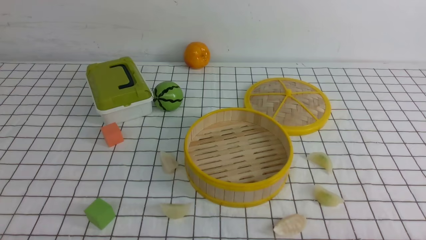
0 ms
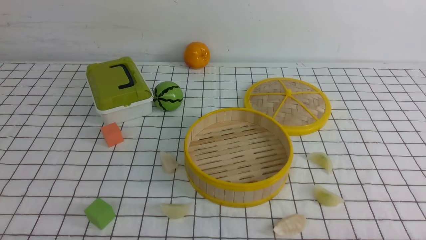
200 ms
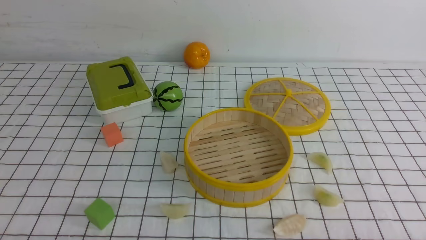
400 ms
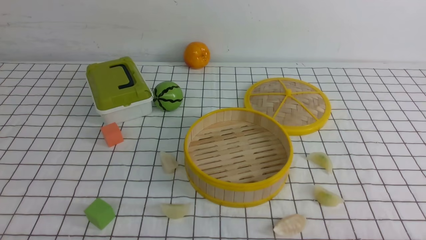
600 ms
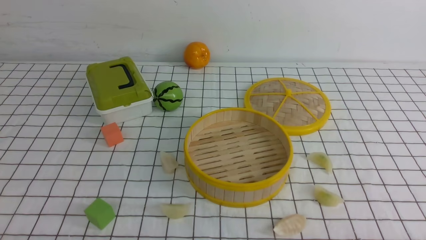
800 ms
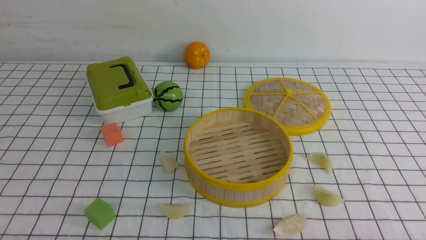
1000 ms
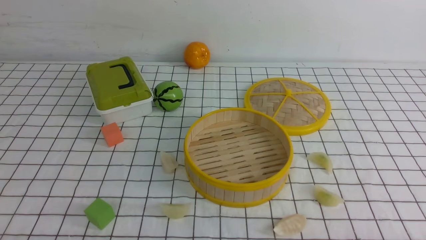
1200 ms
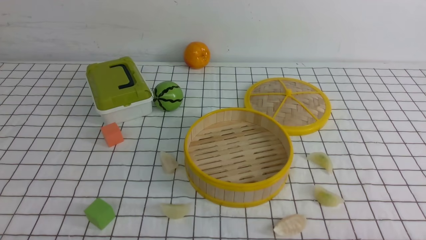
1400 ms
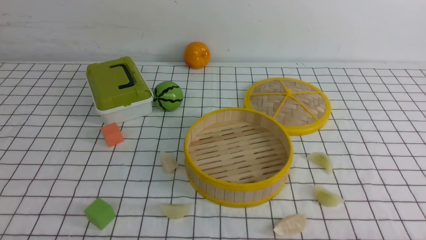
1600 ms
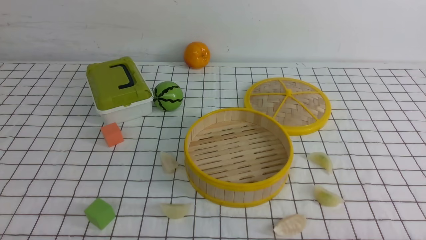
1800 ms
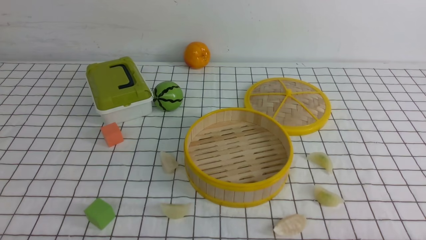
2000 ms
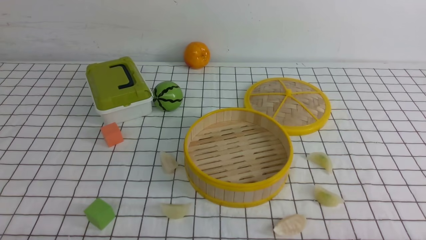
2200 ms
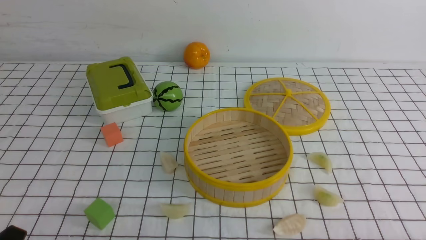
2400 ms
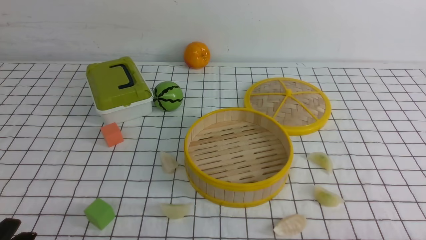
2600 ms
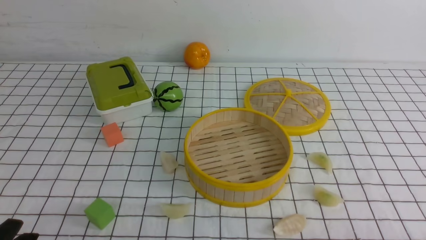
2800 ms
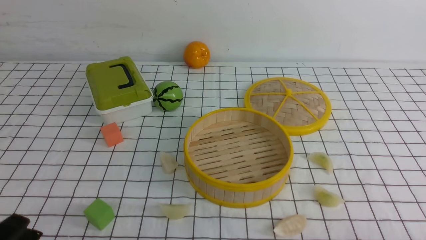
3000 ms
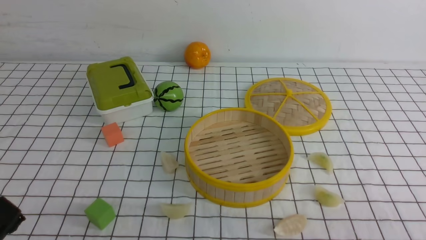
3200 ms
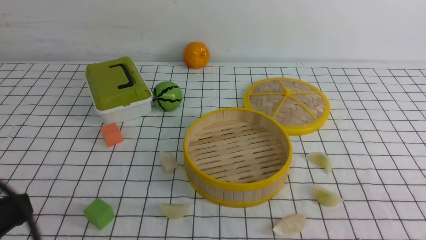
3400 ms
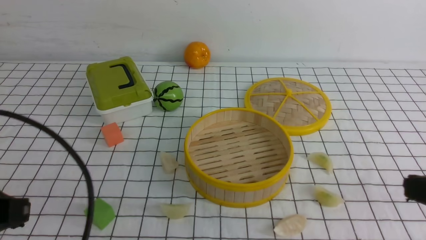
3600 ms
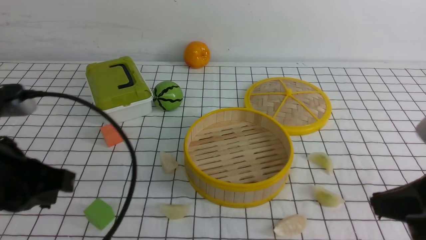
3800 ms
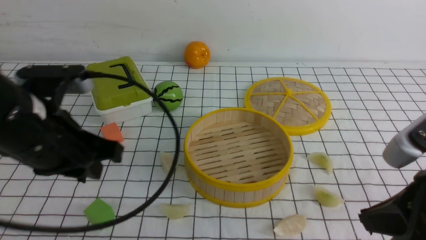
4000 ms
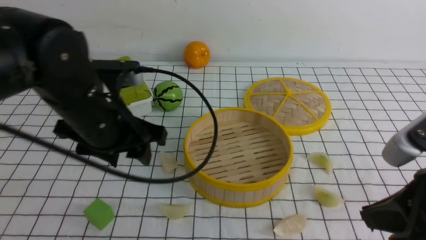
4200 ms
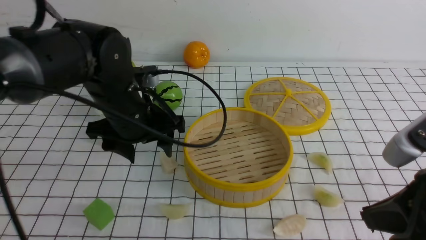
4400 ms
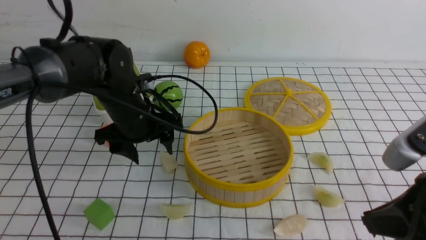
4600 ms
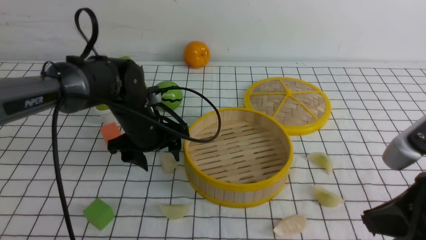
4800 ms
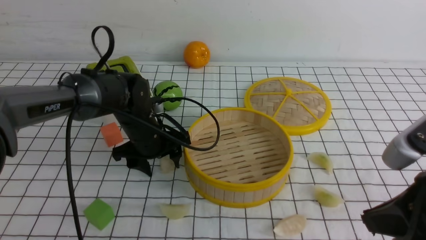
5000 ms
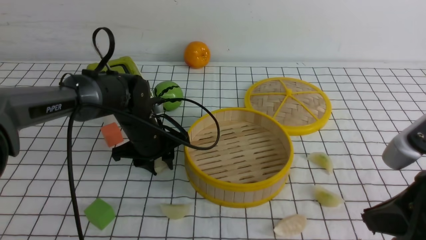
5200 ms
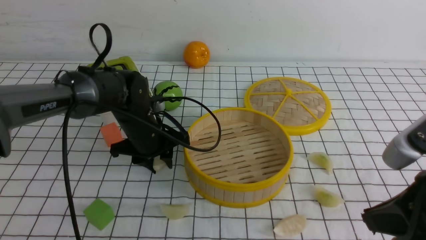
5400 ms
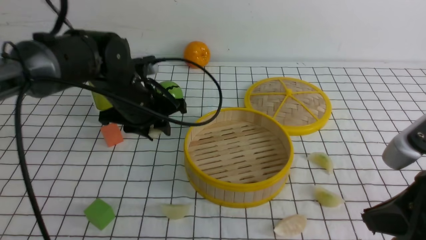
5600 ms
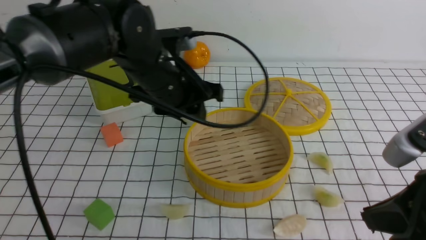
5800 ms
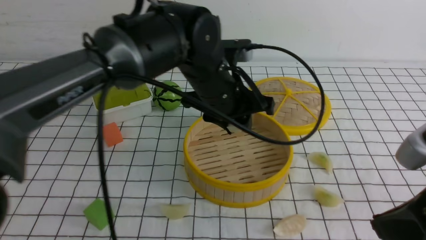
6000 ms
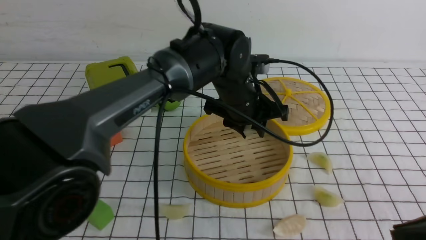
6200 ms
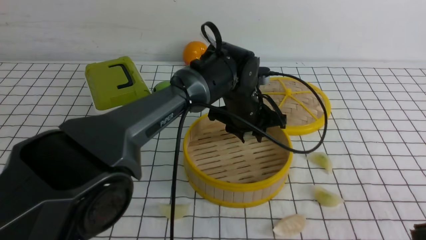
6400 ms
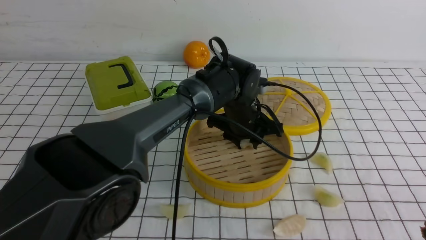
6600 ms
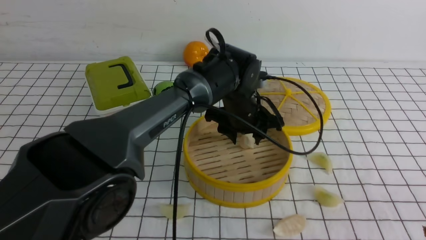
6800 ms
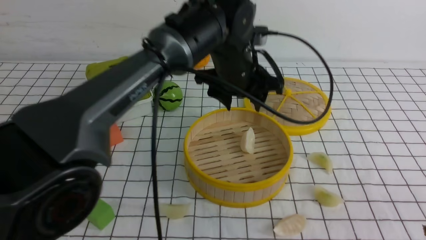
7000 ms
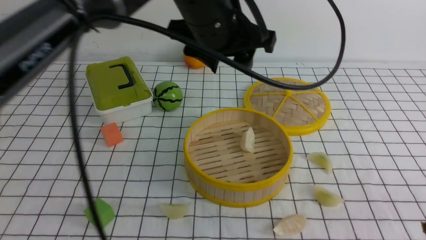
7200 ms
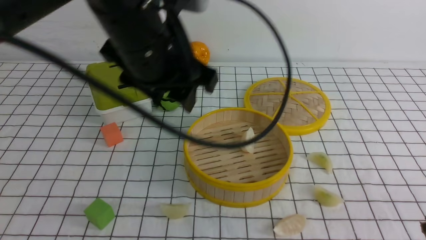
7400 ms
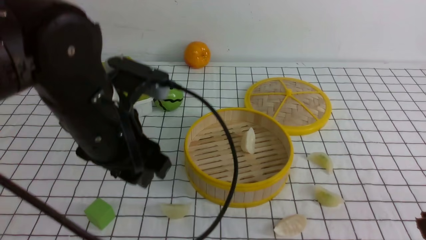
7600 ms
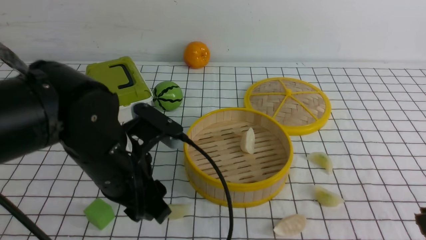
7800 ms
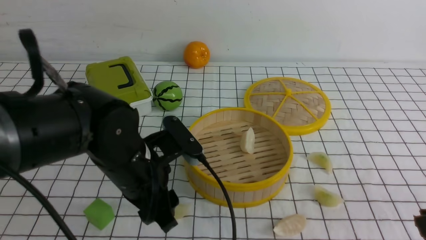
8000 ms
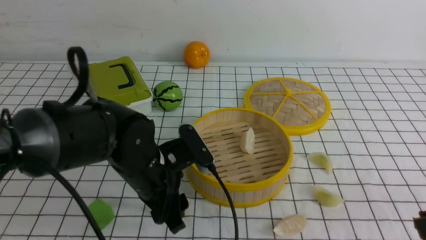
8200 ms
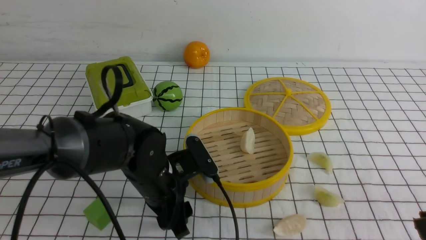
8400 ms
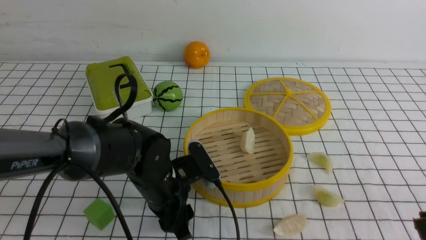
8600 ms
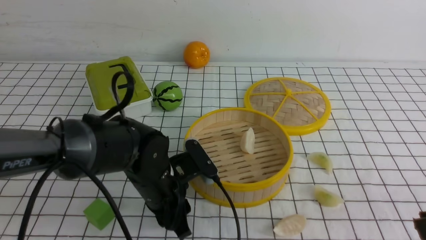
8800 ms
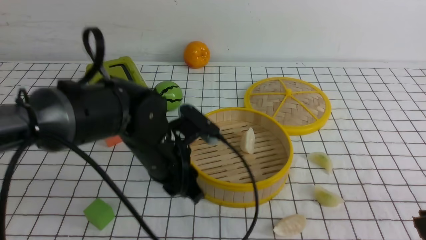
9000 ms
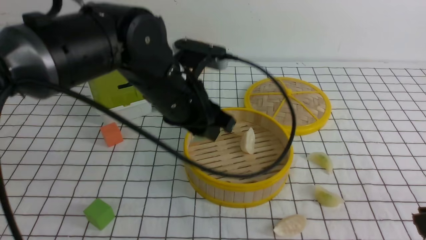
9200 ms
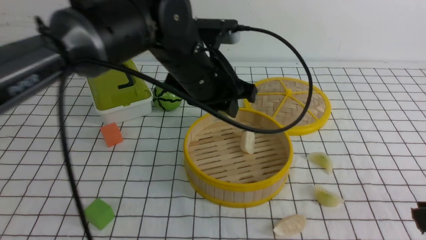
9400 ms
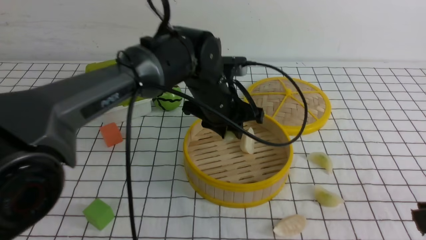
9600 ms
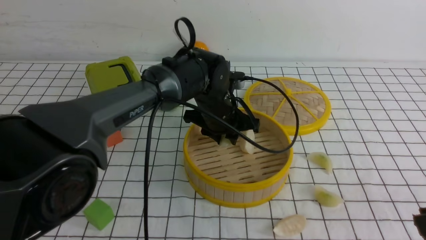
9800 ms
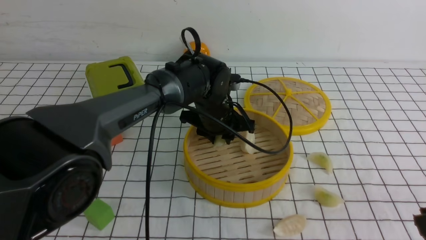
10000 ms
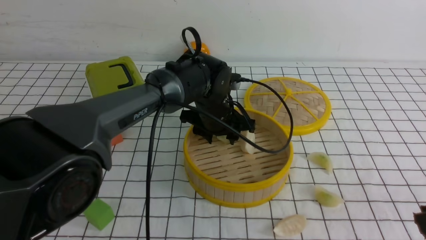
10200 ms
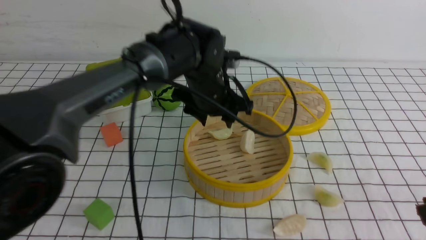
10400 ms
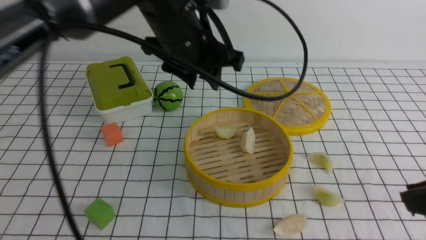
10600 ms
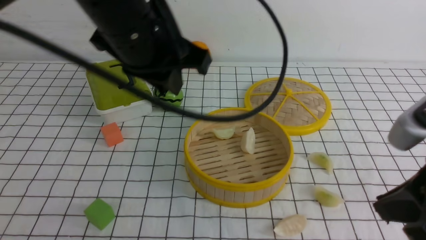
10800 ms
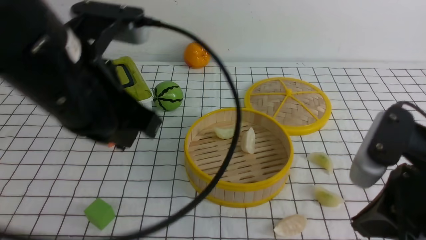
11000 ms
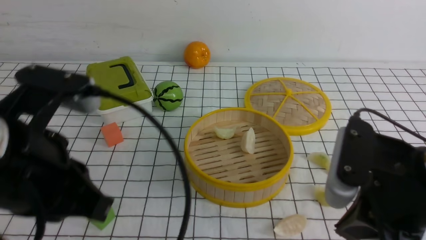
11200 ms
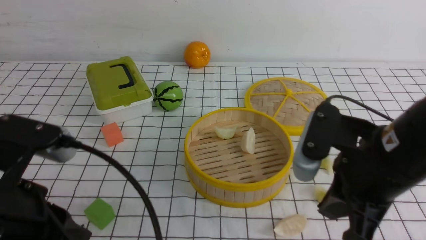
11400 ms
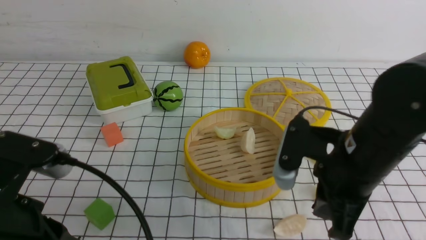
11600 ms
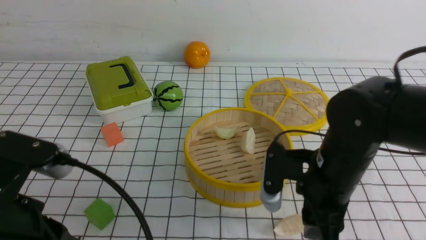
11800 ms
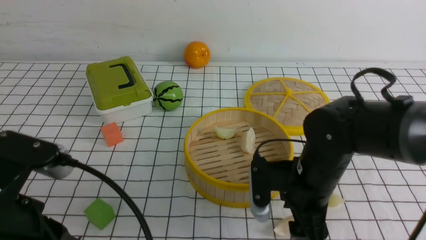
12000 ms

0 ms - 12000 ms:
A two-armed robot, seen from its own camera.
Task of the whole recording: put the dumplings into the steamer on the table with the white tablecloth.
Step, 0 ms - 5600 ms: use the left arm to grab a dumpling.
Step, 5800 ms - 7200 ms: use the left arm to put the dumpling into the steamer.
Step, 7400 ms - 9200 ms: use the left arm to grab a dumpling.
Step, 9400 ms - 10400 ms: use the left arm to put the dumpling into the steamer.
0 ms - 1600 ms: Both grippers stay put.
1600 ms - 3000 ms: The left gripper goes some 5 cm upward.
3000 ms - 4400 ms: The right gripper shifts roughly 15 cm upward, forward and to the left, and closes, while the left gripper goes roughly 30 cm forward and to the right, and opens up.
4400 ms - 6000 ms: The left gripper moves to the right, about 10 cm, and closes up.
6000 ms - 7600 ms: The left gripper goes up and down, about 15 cm each way, reversing 2 times.
7600 ms - 9000 ms: The left gripper is displaced downward by approximately 5 cm.
9000 ms - 10400 ms: The left gripper is displaced forward and upward by some 10 cm.
10400 ms - 12000 ms: The left gripper is displaced backward and to the left by roughly 30 cm, and closes. Meanwhile the right gripper heads forward, downward and to the left, covering roughly 25 cm, and opens up.

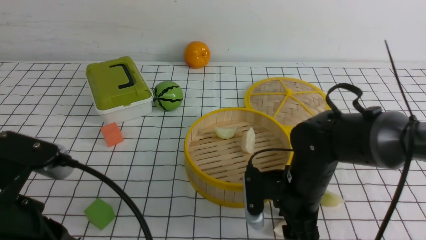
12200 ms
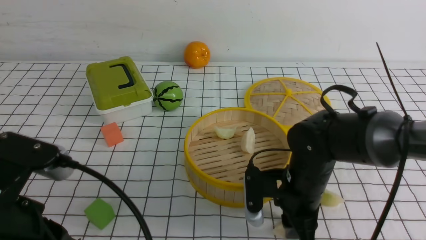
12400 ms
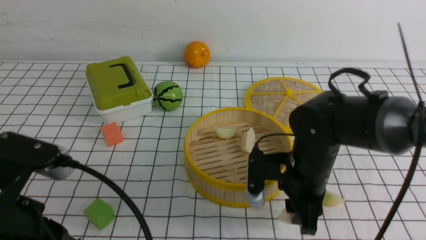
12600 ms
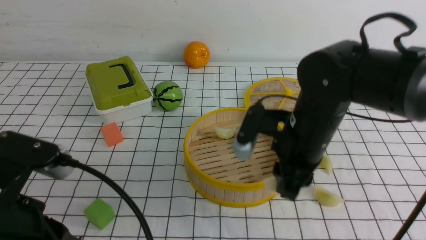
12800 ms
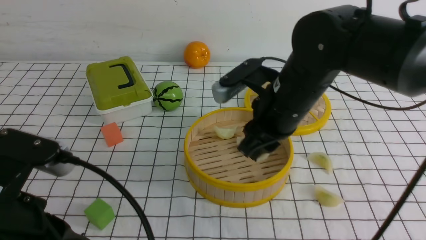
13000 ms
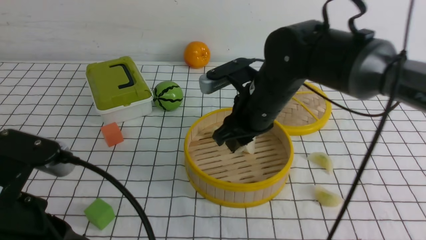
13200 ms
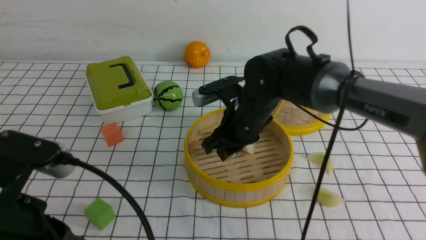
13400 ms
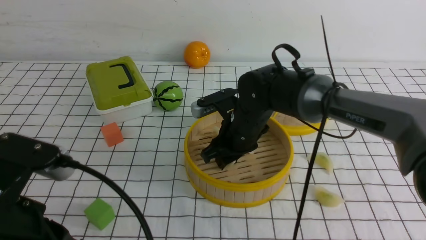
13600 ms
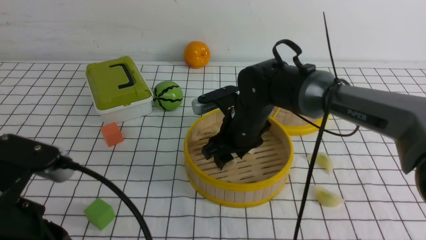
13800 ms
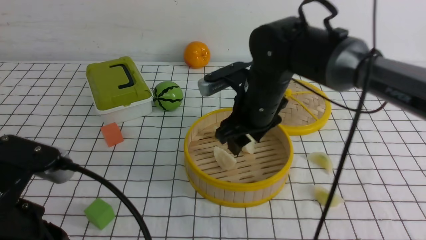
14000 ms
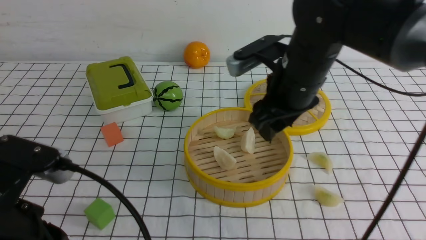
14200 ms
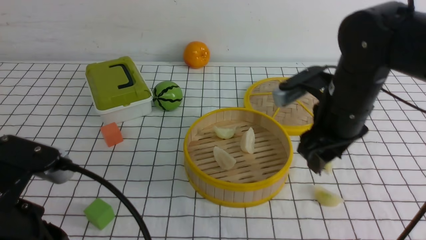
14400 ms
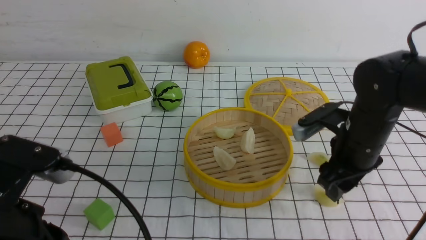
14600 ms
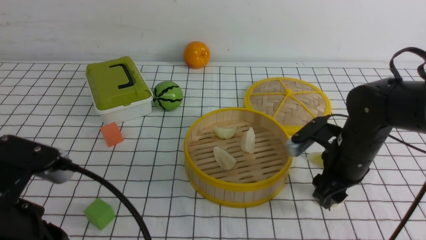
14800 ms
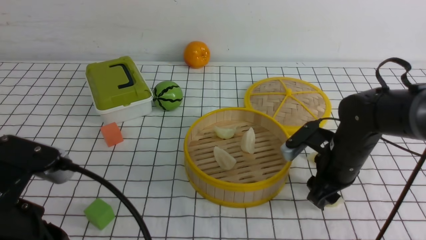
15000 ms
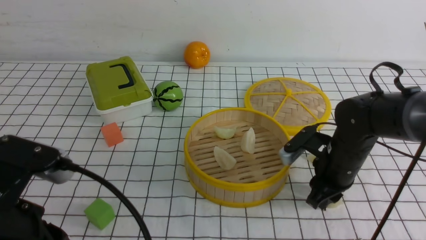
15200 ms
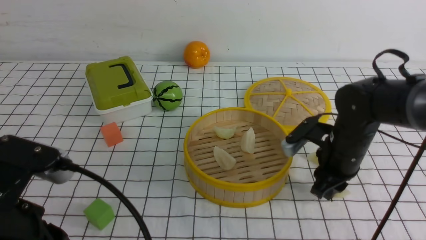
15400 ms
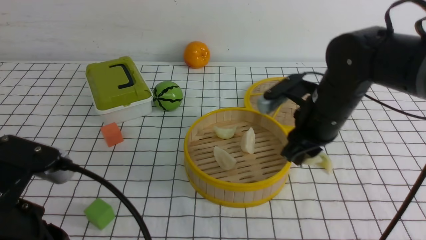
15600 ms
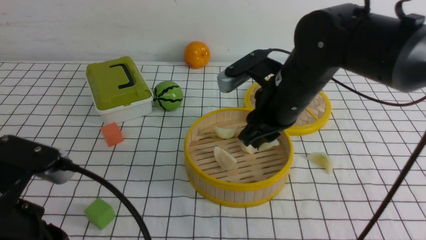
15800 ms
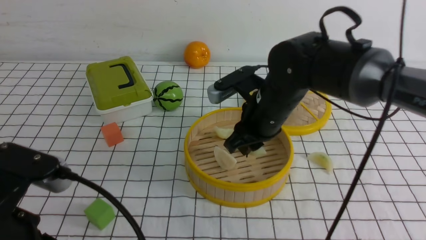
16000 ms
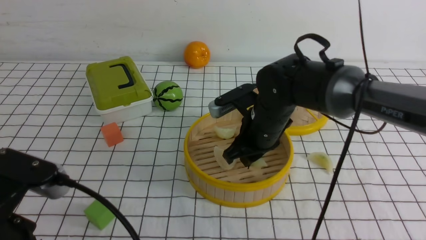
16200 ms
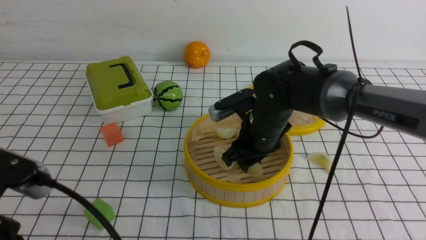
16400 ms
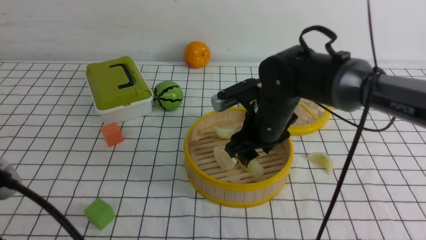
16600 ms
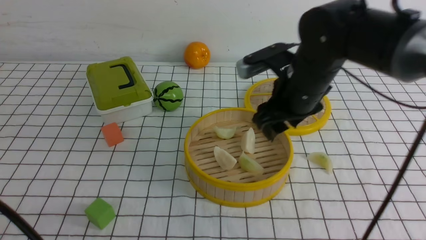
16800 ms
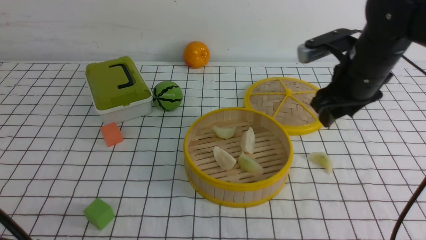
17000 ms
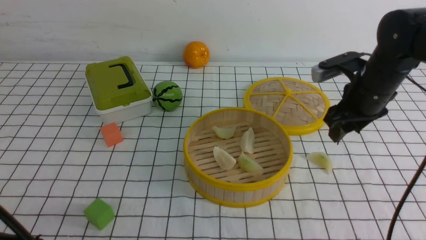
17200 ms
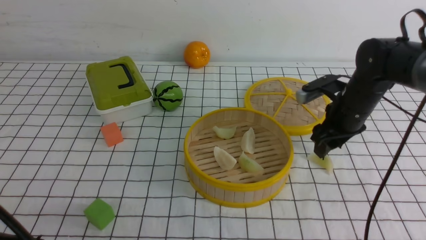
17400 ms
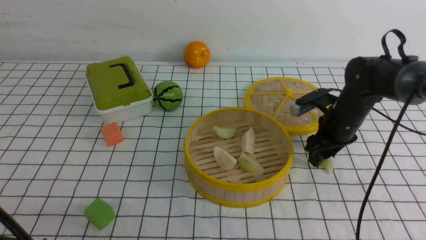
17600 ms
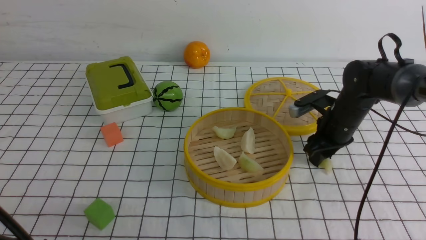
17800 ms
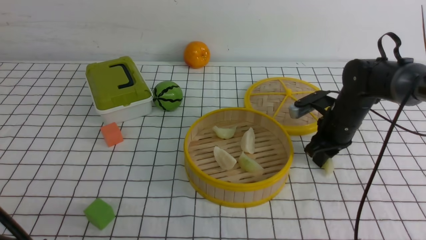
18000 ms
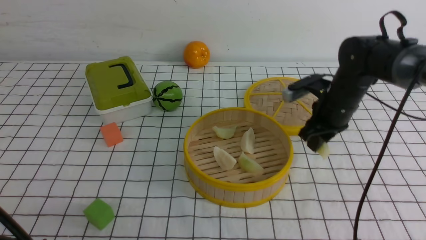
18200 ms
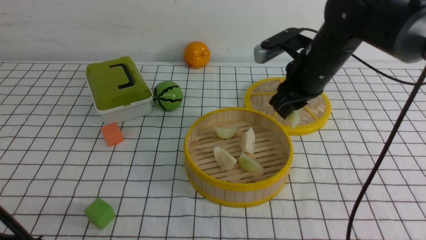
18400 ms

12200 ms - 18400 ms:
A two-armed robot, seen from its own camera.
Task of the whole recording: put the dumplings into the steamer on the table with the white tablecloth.
Step, 13000 ms - 14000 ms: use the right arm to put the dumpling into the steamer.
Step, 14400 ms - 15800 ms: use the right arm to grab a dumpling.
Step, 16000 ms - 16800 ms: use the right arm to put the dumpling into the steamer.
12200 ms - 13800 ms: The right gripper heads forward, to the left and upward, covering roughly 15 cm, and closes and opens again.
13800 ms - 15400 ms: The right gripper goes about 15 cm to the right, and closes its fingers.
15400 ms - 16800 ms: The left gripper shifts by some 5 cm, while the right gripper moves upward, some 10 cm, and opens up.
16800 ms - 18400 ms: The right gripper goes downward and returns, roughly 10 cm each way, and closes up.
